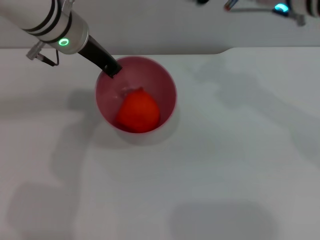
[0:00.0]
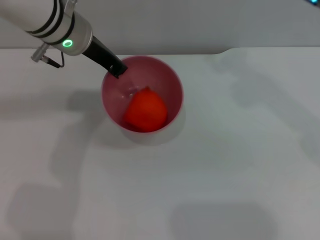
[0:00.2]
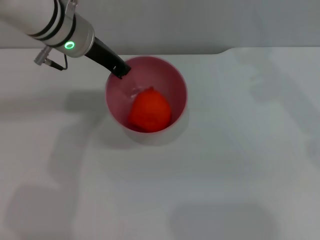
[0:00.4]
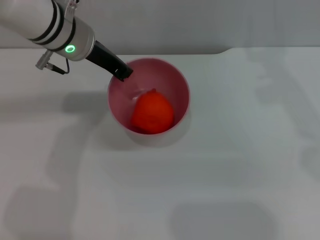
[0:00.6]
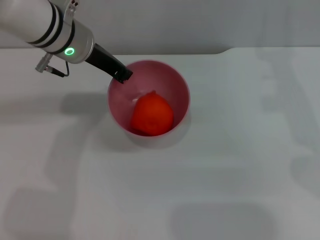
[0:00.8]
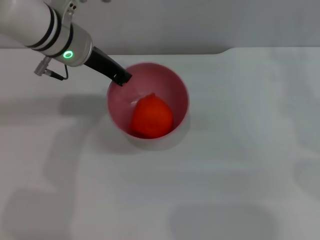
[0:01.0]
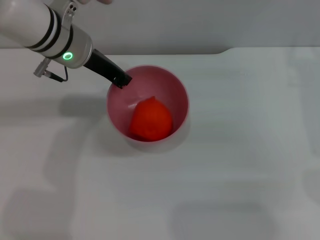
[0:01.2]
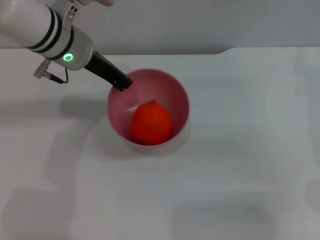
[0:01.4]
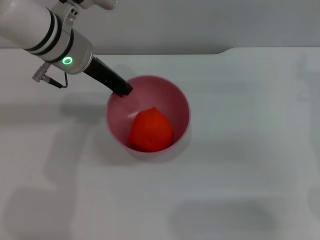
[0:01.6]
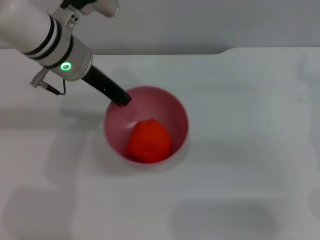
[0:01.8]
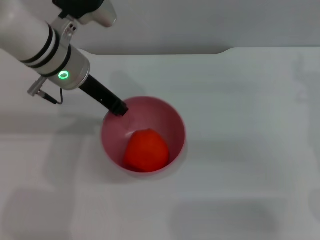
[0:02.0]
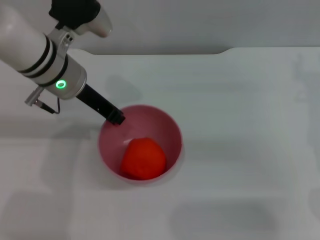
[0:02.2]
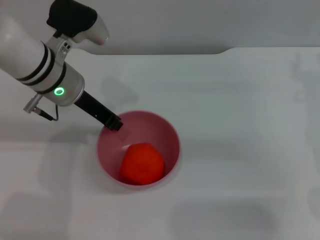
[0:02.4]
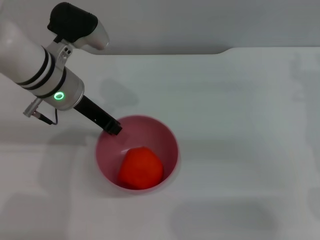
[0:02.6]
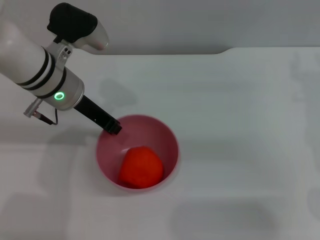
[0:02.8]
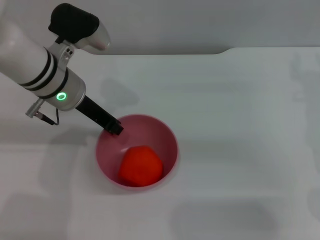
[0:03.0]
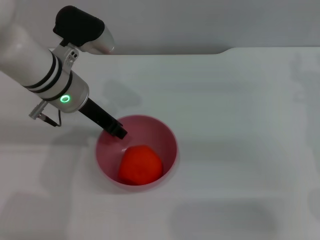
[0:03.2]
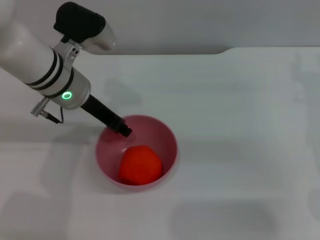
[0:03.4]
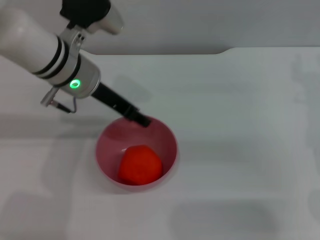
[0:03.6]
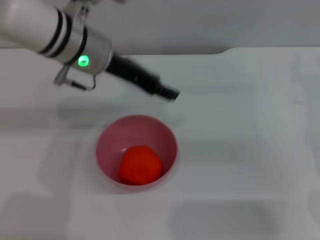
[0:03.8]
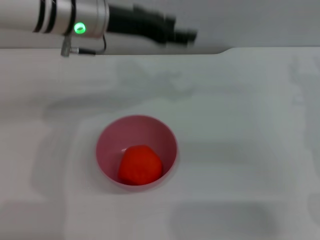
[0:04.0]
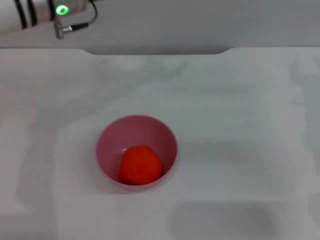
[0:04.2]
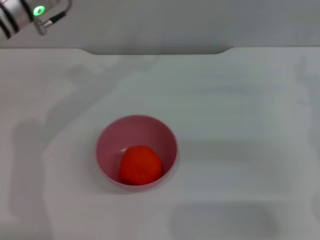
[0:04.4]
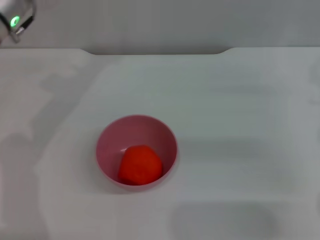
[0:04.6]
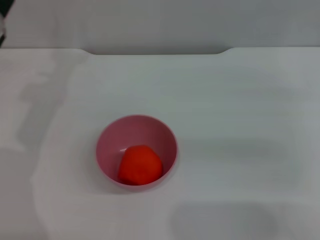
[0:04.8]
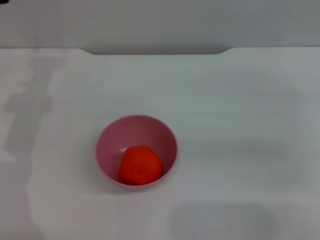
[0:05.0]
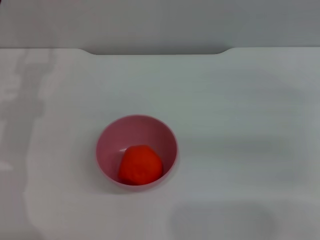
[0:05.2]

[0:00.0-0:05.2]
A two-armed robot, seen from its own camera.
Task of the whole recording: put the orange into the pink bowl and pour it out repeatedly.
Step, 0:00.2 to 0:03.4: Place the bowl on the table.
0:00.0 to 0:01.8: The right gripper goes roughly 15 cm to the right, downward and backward.
0:01.8 to 0:03.4: The grippers move only a little.
0:03.4 to 0:05.2: The left gripper heads to the left, covering roughly 15 cm, and opens. The right gripper goes some 5 cm to the right.

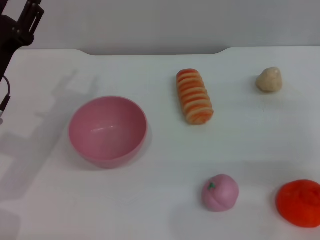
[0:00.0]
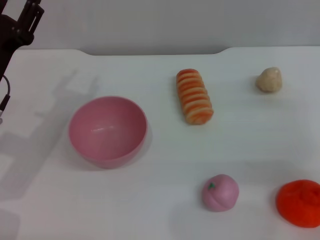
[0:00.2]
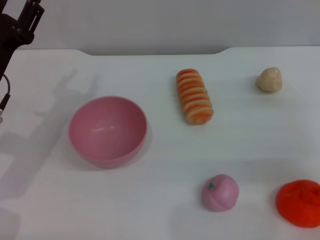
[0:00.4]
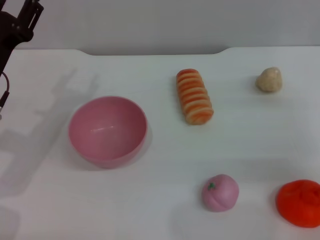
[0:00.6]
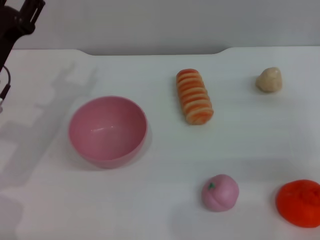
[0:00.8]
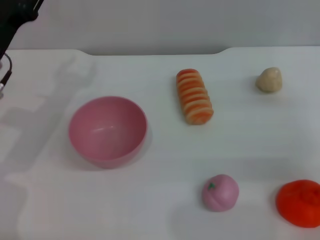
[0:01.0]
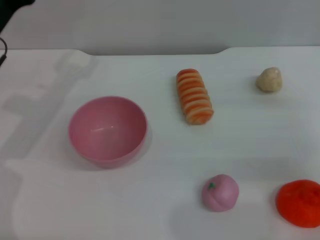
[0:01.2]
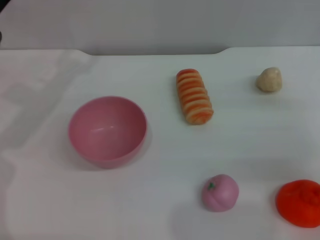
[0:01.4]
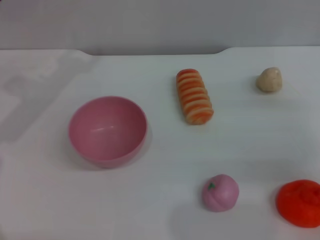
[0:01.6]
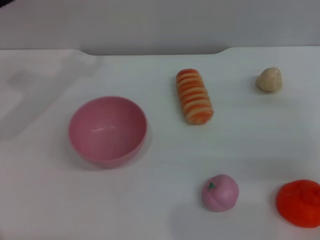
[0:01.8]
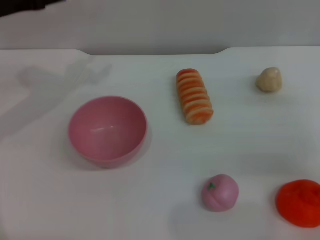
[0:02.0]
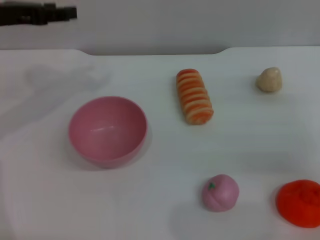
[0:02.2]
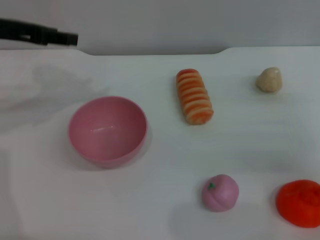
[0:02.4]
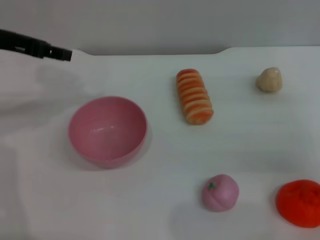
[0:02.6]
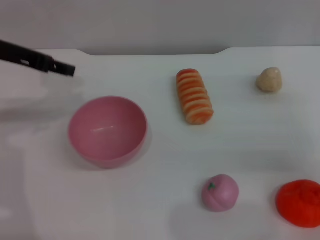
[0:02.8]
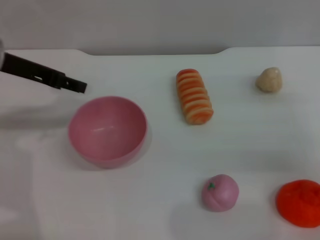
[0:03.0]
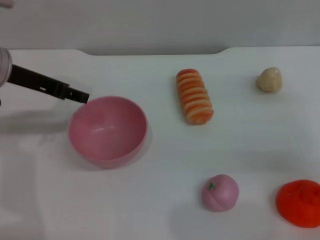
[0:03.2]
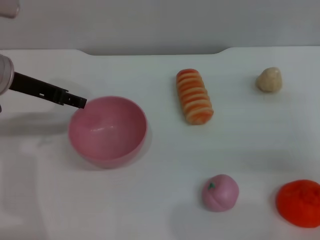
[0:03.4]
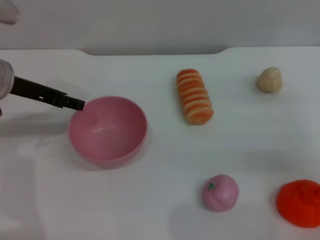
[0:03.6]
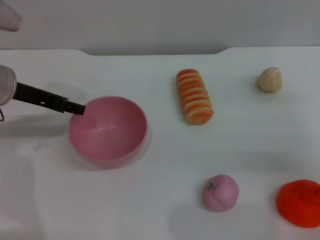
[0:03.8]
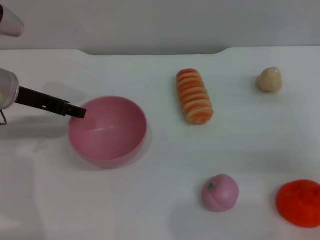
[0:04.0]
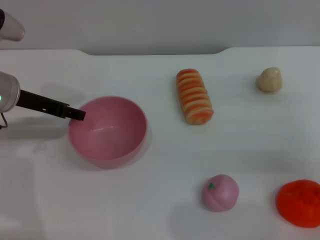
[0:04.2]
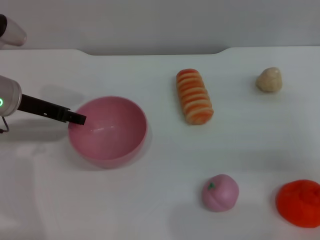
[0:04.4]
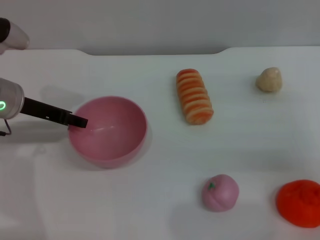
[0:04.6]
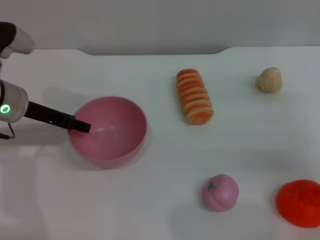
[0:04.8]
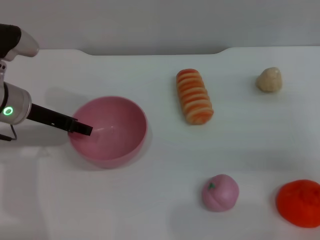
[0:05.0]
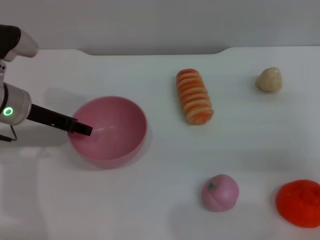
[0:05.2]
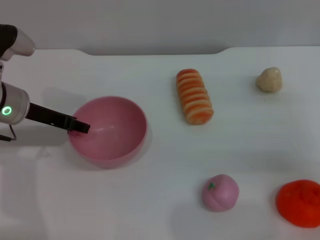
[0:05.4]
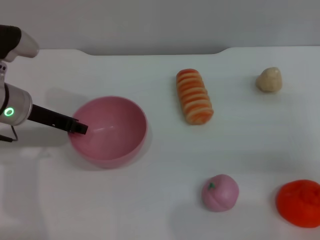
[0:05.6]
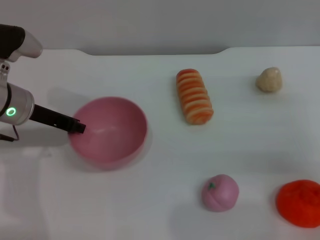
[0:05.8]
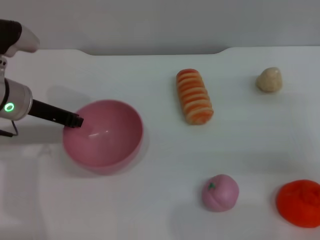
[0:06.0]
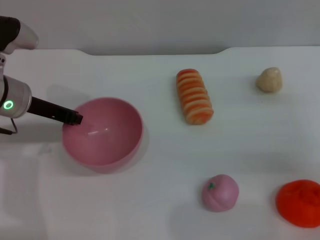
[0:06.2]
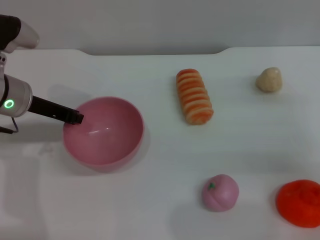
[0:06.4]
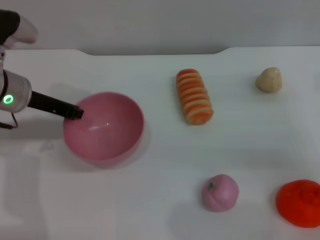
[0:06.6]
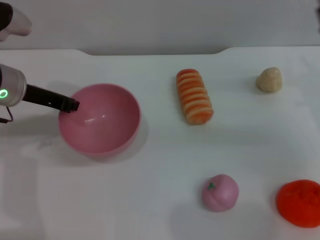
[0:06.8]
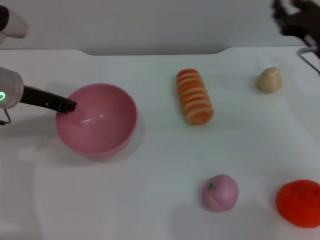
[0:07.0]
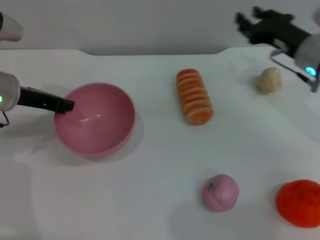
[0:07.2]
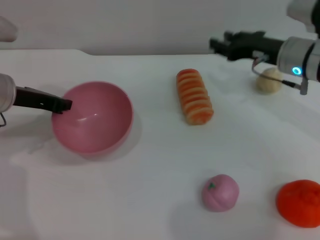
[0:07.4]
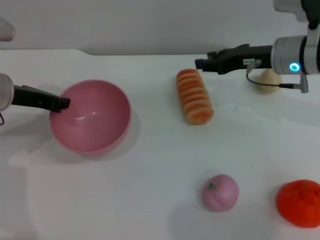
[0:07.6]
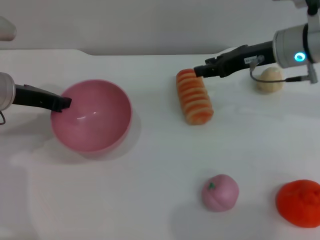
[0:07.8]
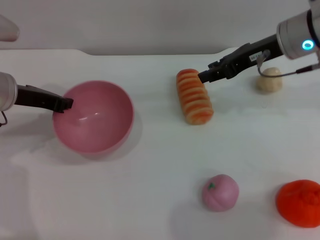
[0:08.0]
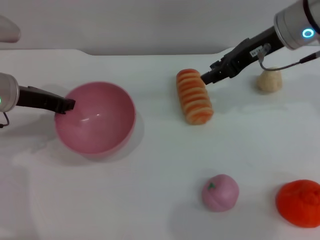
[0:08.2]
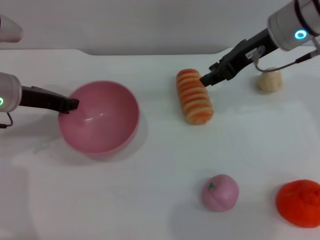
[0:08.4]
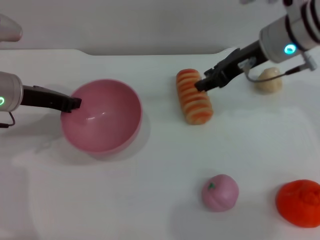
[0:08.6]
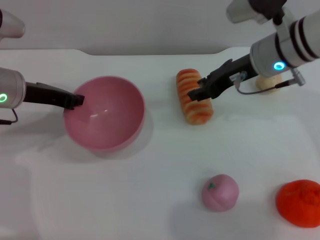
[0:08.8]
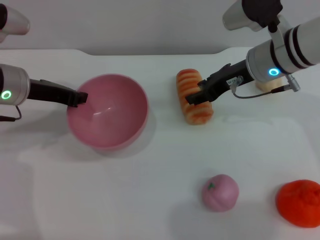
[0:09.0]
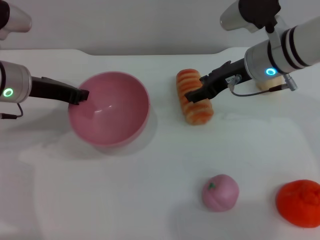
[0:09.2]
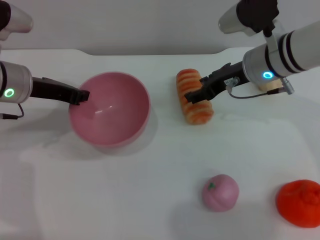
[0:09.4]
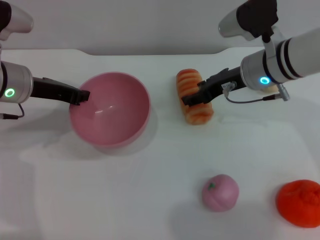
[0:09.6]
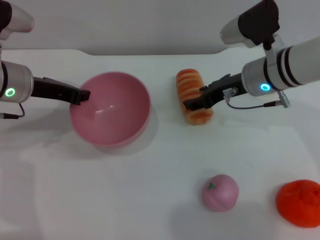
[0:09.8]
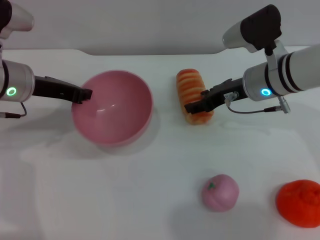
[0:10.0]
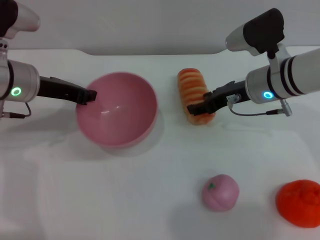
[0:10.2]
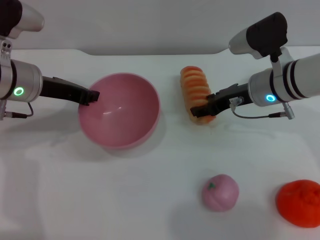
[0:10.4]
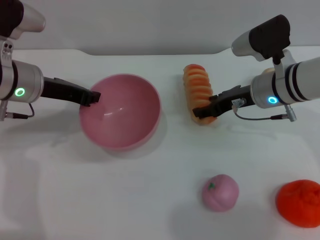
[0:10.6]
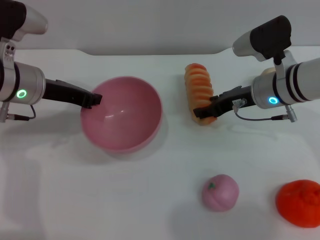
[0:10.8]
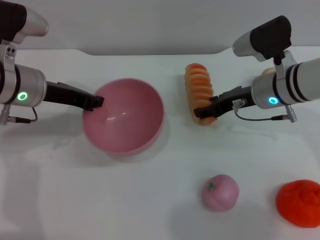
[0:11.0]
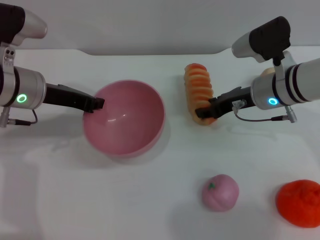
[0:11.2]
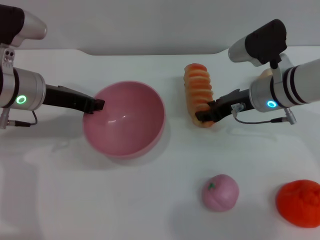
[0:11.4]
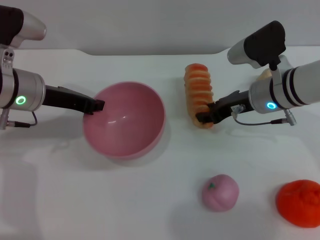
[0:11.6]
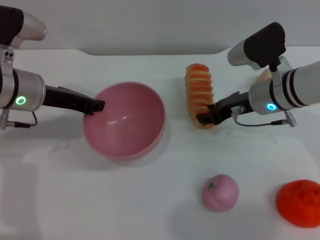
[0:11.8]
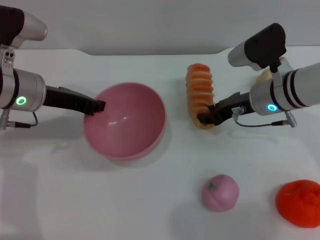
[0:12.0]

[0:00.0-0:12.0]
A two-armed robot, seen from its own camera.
Task of the whole recording: put the bread into the pink bowl and pour it out repeatedly.
Step, 0:00.0 to 0:08.0: Pick up the bowl with the left gripper.
0:00.0 to 0:01.6: The left gripper shifts about 10 cm forward and upward.
0:01.6 to 0:03.0: The left gripper shifts by approximately 5 cm.
0:03.0 to 0:04.4: The left gripper moves downward, some 10 cm.
0:04.4 to 0:06.0: The left gripper closes up.
0:06.0 to 0:07.6: The right gripper goes about 15 cm to the left, forward and upward.
0:09.0 to 0:10.4: The right gripper is displaced downward by roughly 5 cm.
0:10.4 to 0:12.0: The right gripper closes its fingers.

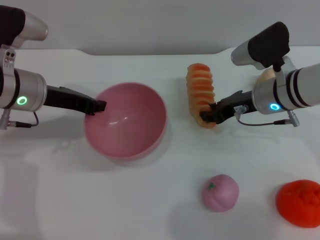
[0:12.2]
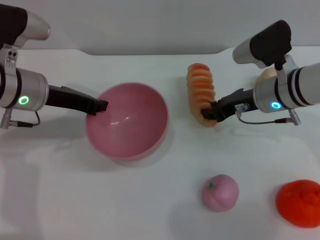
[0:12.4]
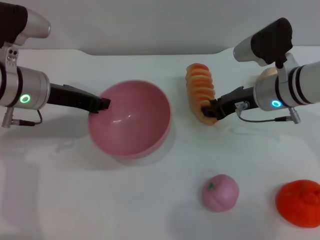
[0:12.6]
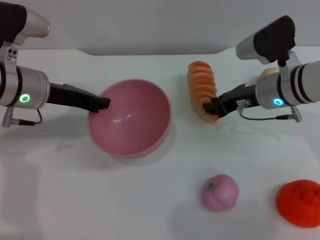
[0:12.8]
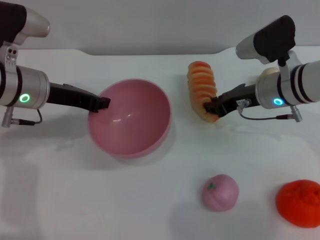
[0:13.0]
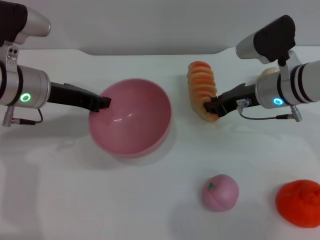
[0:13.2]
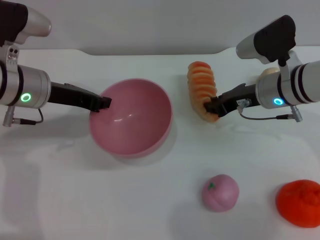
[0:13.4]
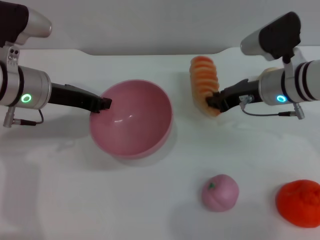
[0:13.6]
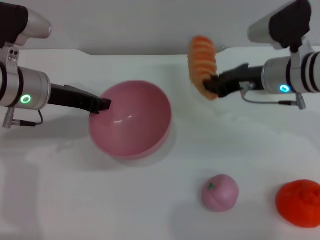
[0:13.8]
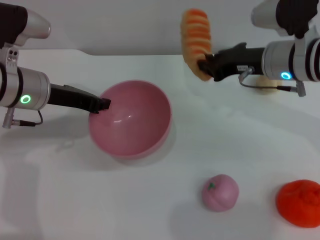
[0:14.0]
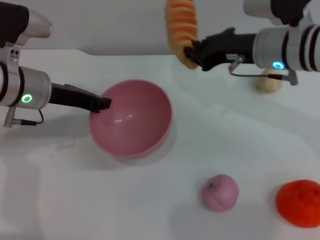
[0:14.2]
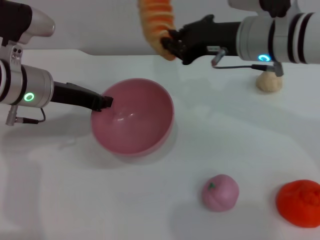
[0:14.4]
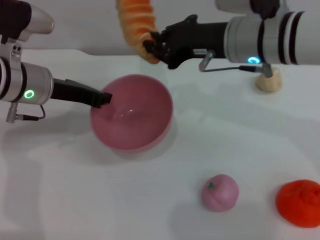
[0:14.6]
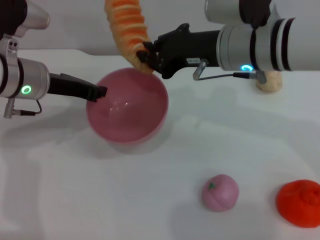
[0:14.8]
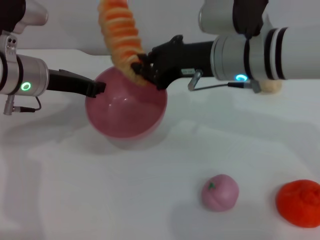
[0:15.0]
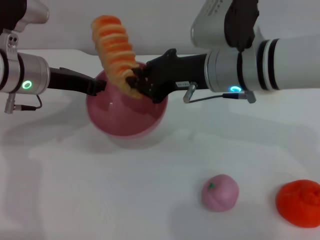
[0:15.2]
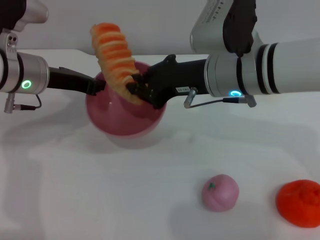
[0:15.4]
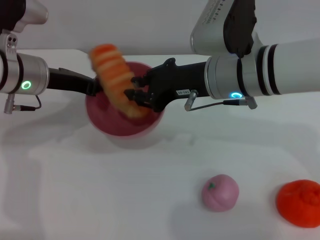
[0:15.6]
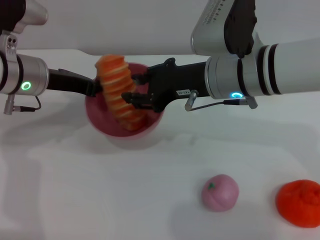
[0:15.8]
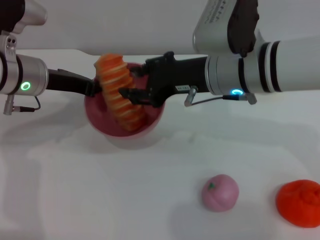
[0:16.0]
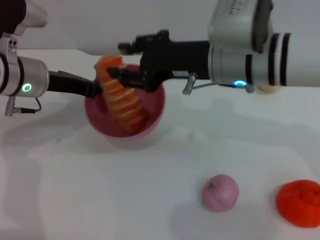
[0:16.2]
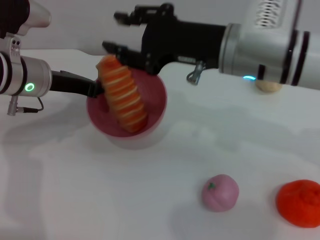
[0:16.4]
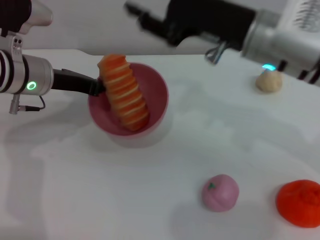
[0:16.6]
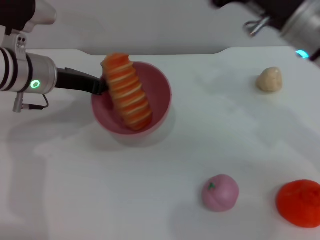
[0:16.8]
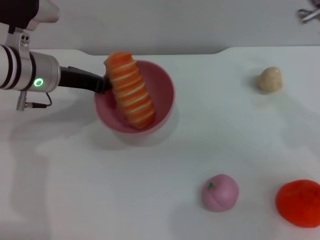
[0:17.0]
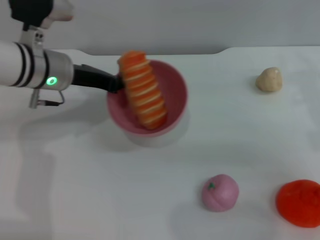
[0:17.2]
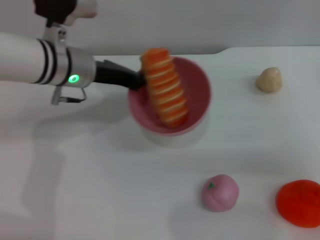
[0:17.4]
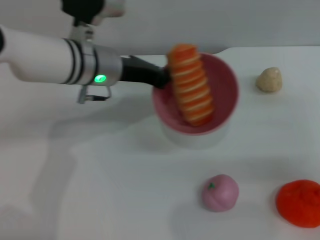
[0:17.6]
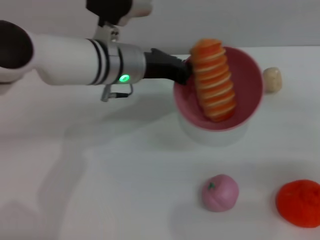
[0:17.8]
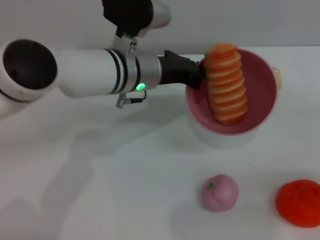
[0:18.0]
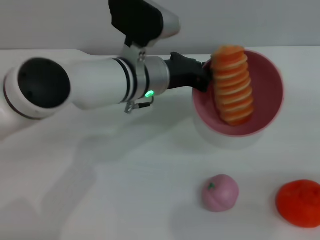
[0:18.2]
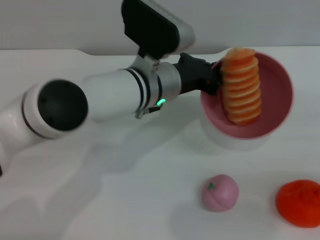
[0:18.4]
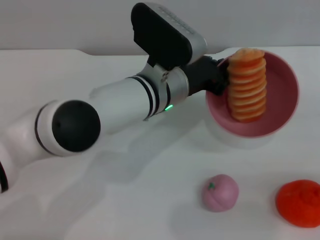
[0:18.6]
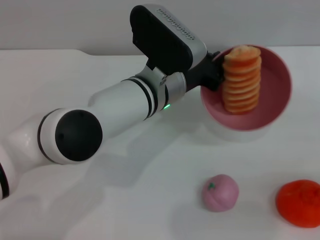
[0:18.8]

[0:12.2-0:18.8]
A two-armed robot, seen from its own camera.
Task of the whole recording: put the bread into the pink bowl and pour it out repeatedly.
Step, 0:12.2 to 0:14.4: Pick up the bread with the right gripper.
Step, 0:14.6 to 0:18.2: Place the bread into the bowl.
0:12.2 to 0:13.8: The grippers make only small movements.
0:13.8 to 0:15.4: The right gripper travels to the left and upward by roughly 10 cm.
0:15.4 to 0:17.2: The right gripper shifts roughly 20 cm to the right, and opens.
0:17.2 to 0:18.8: The left gripper is displaced to the right by approximately 15 cm. The right gripper heads to the right and backward, covering approximately 15 cm.
